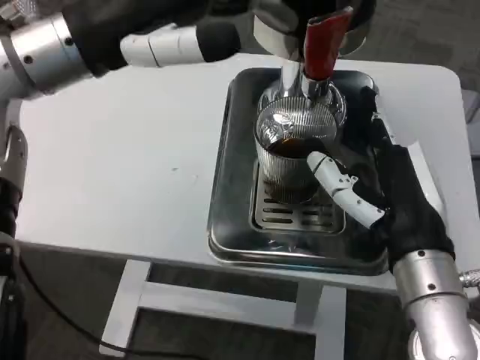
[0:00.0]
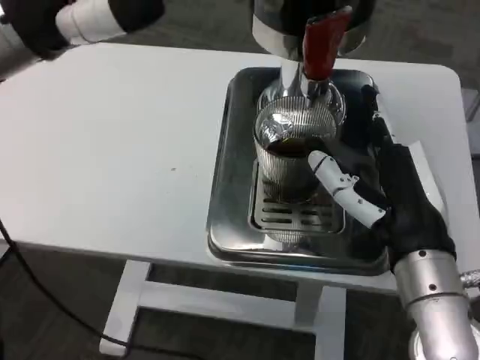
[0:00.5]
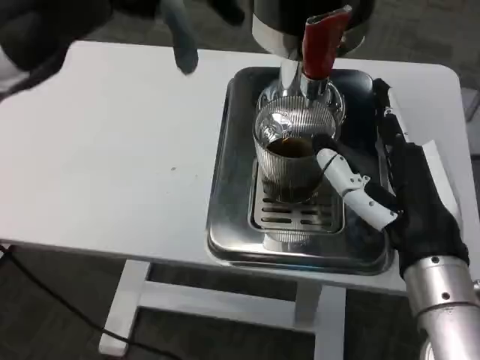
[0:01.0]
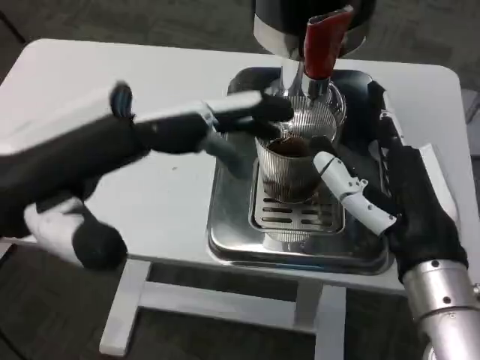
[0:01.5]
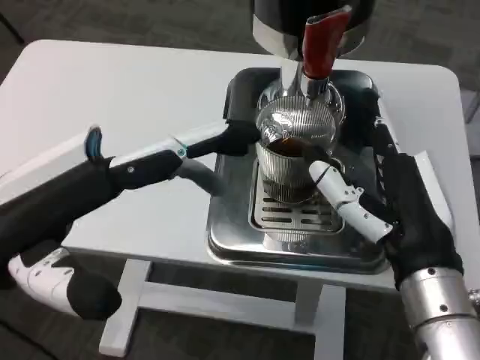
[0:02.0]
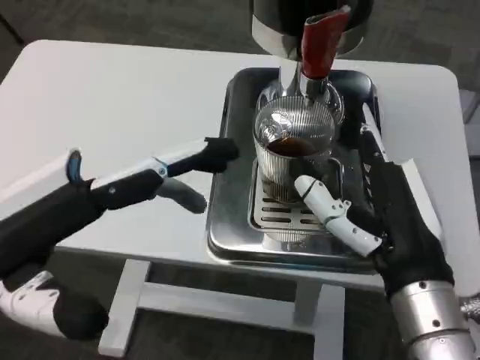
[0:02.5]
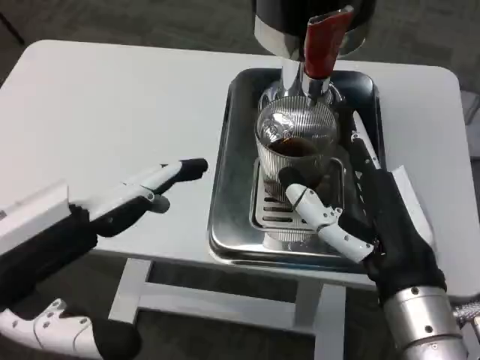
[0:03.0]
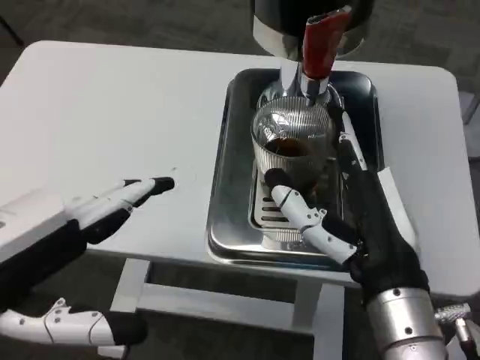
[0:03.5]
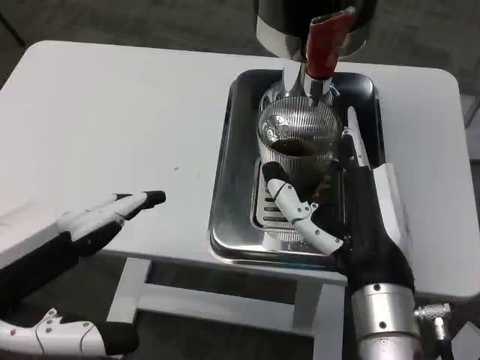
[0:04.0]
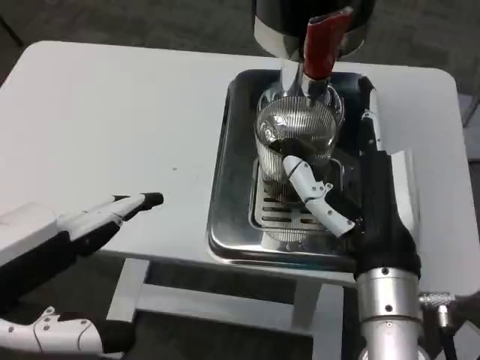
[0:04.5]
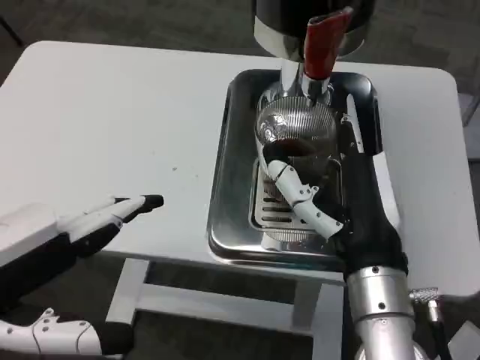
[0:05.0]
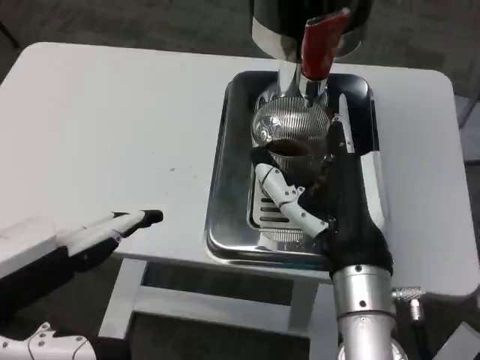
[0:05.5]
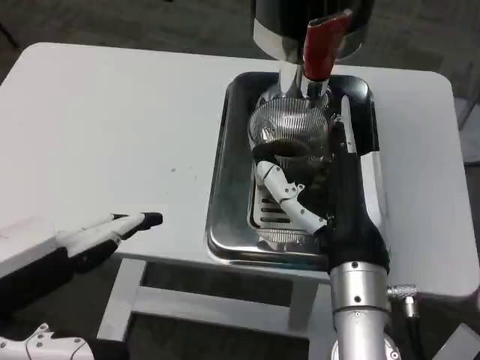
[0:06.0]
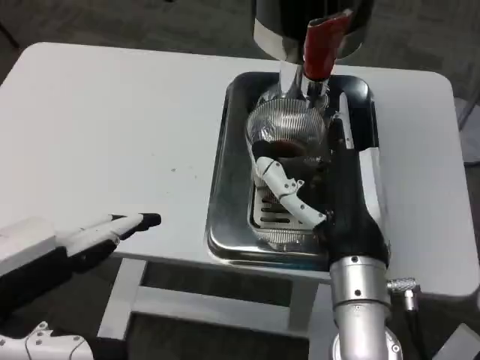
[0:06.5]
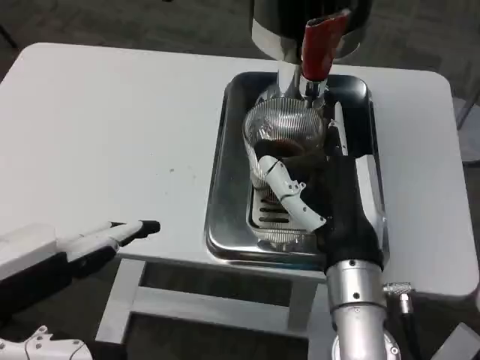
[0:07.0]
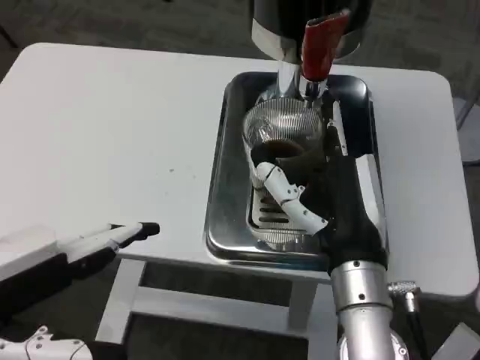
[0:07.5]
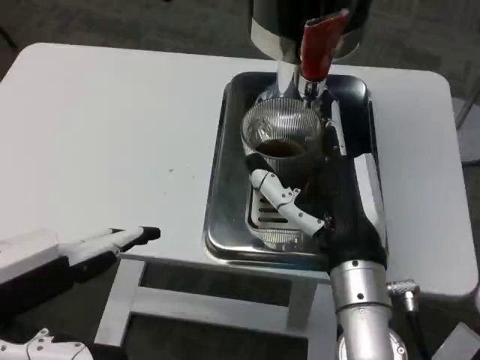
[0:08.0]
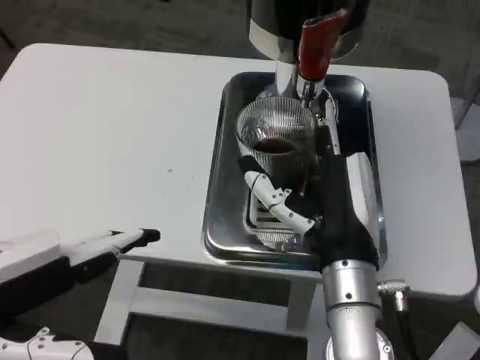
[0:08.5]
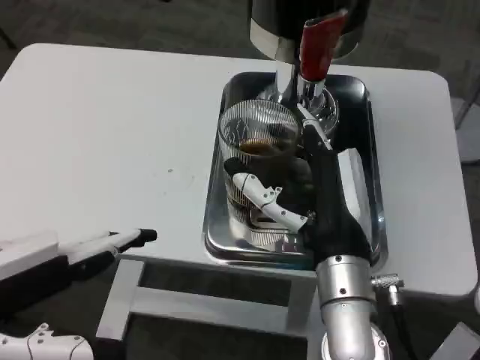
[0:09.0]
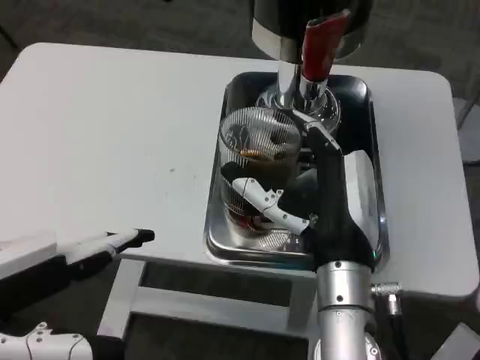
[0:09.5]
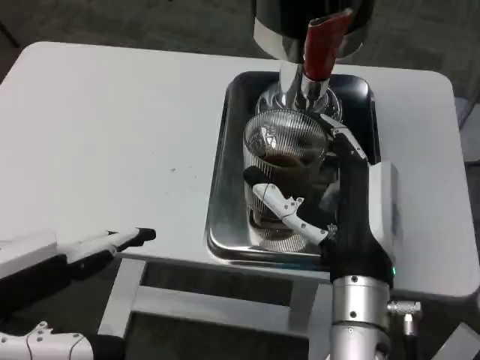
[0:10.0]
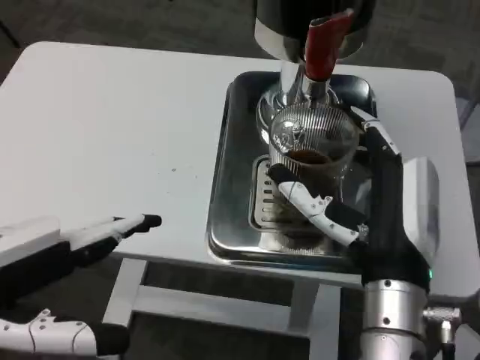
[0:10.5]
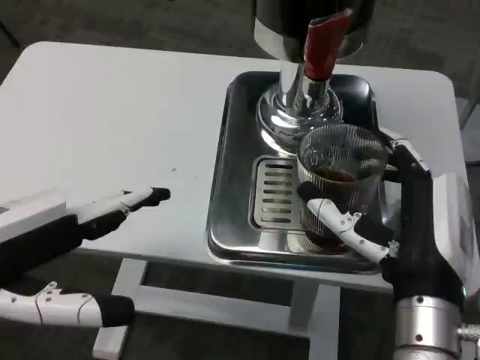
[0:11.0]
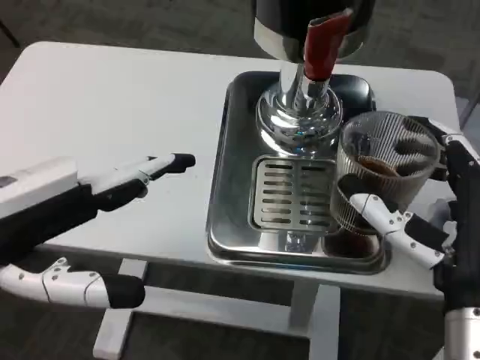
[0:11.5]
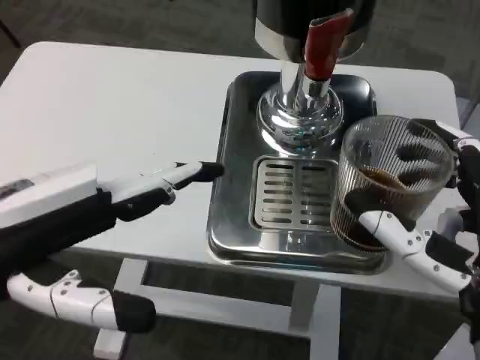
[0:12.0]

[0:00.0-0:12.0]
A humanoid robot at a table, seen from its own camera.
Task of the whole recording: Grasp the cup under the faucet to collect the drink, then remove the cup.
0:00.0 to 0:02.0: The left hand travels downward, backward and to the left by about 15 cm.
0:02.0 to 0:04.0: The left hand is displaced backward by roughly 5 cm.
0:06.0 to 0:10.0: The hands move only a little.
0:10.0 to 0:12.0: The right hand heads backward and to the right, covering roughly 15 cm.

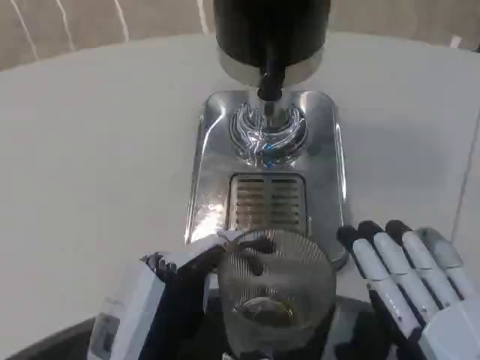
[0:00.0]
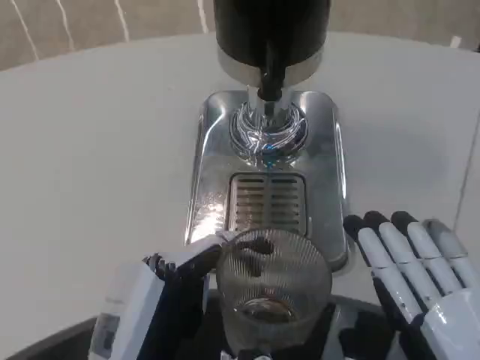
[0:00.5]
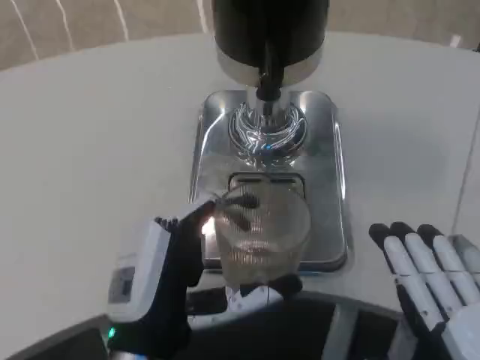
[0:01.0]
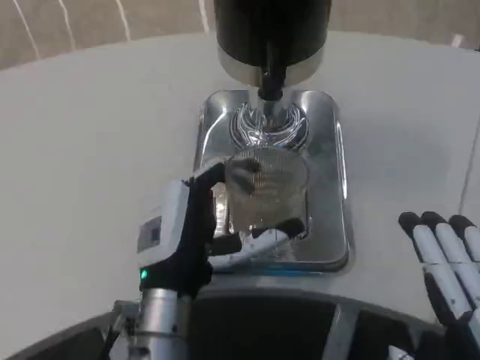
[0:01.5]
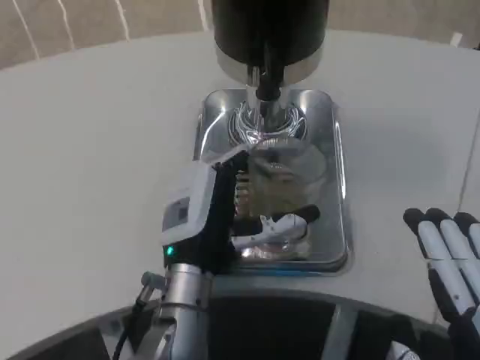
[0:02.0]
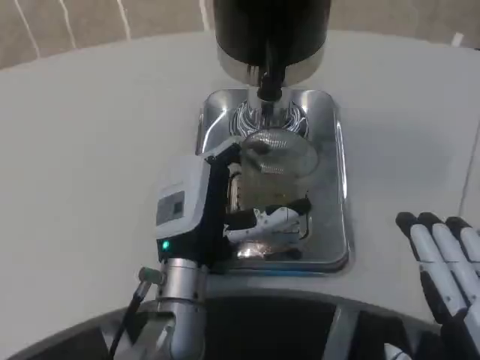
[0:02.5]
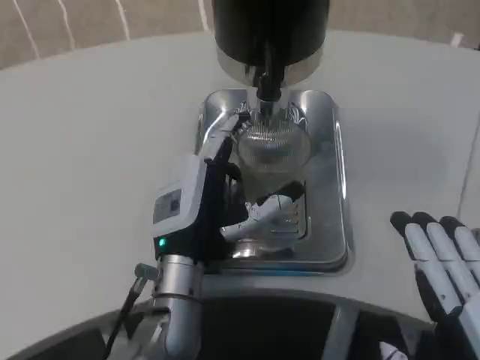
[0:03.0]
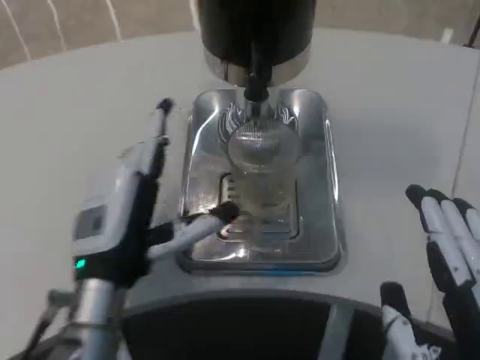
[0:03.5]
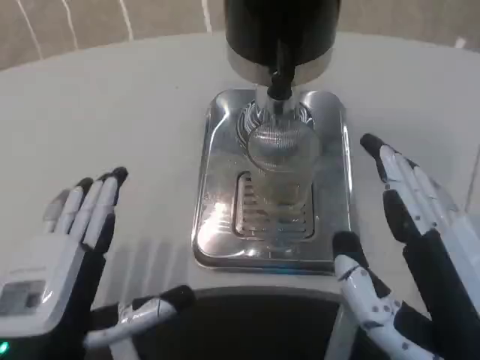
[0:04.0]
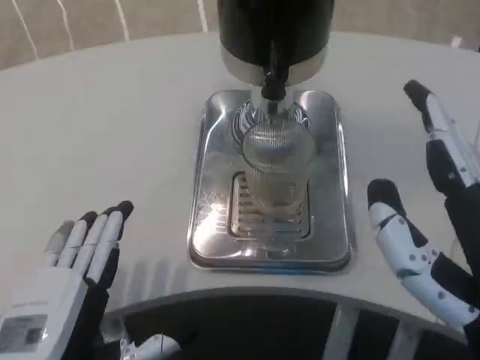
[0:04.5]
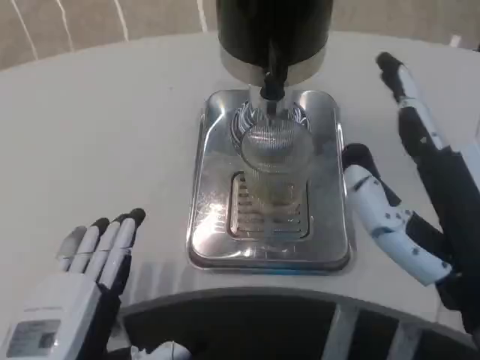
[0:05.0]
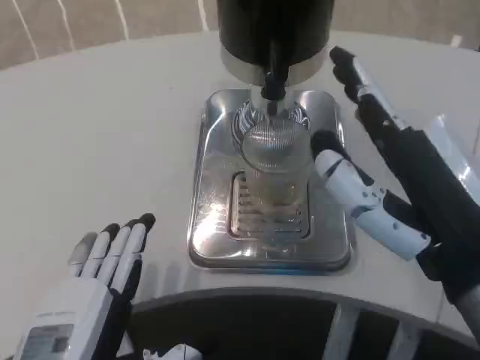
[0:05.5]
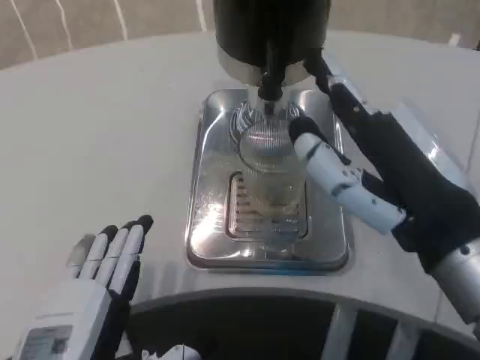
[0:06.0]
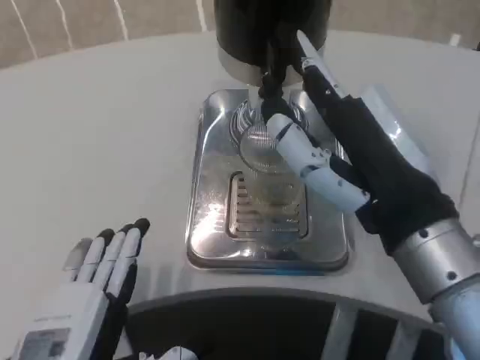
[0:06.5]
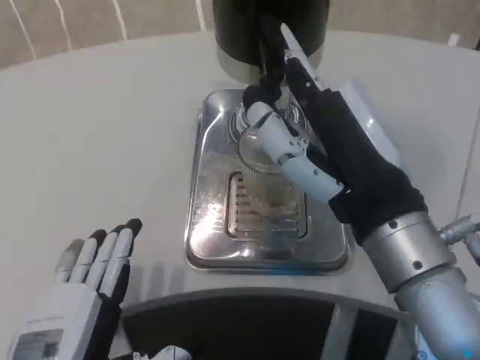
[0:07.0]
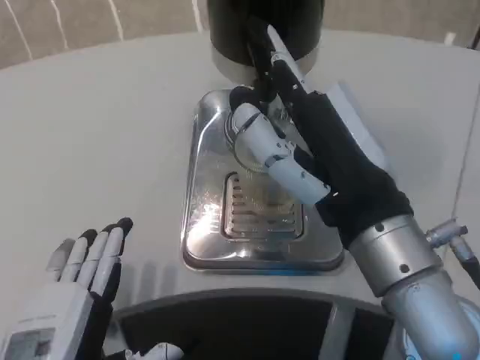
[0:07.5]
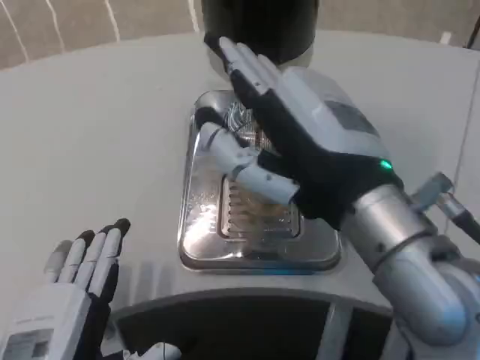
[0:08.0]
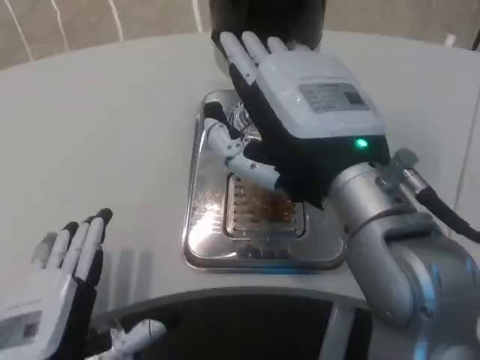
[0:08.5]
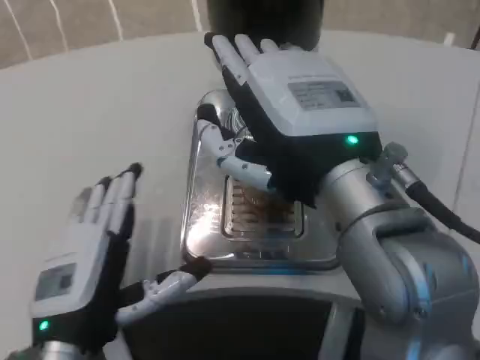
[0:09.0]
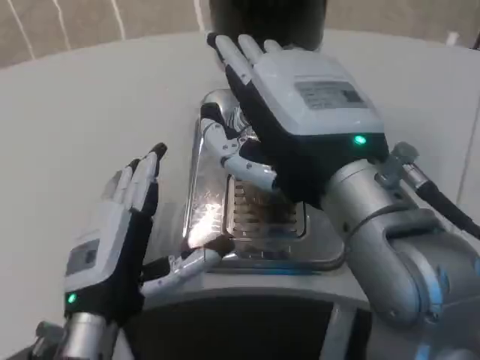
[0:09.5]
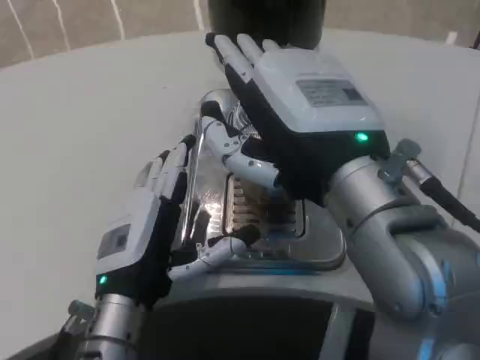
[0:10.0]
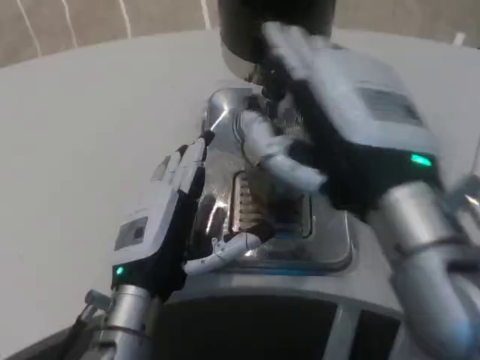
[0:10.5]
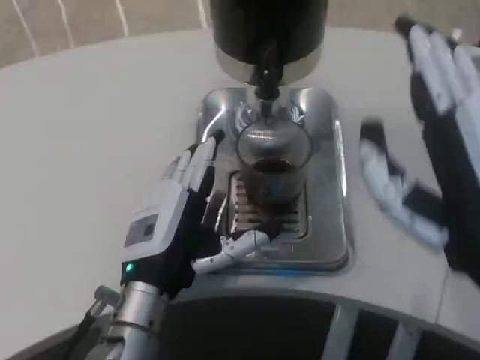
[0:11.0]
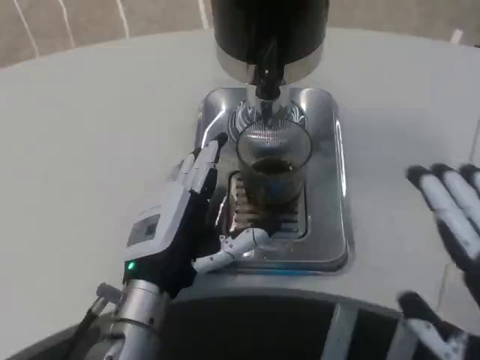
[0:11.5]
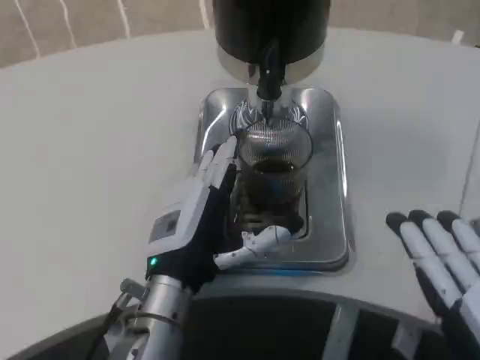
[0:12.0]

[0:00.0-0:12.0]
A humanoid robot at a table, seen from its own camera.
Task of the whole recording: Grasp the cup under the faucet to collect the drink, then remove the cup.
0:00.0 to 0:02.0: The left hand goes approximately 15 cm forward.
0:02.0 to 0:04.0: The left hand heads backward and to the left, covering roughly 15 cm, while the right hand moves about 5 cm.
0:04.0 to 0:06.0: The right hand is displaced forward by about 10 cm.
0:06.0 to 0:08.0: The right hand shifts some 5 cm to the left.
0:08.0 to 0:10.0: The left hand goes approximately 10 cm forward.
0:10.0 to 0:12.0: The right hand goes roughly 20 cm backward, to the right and downward.

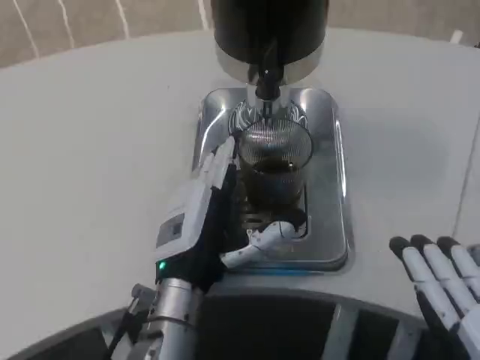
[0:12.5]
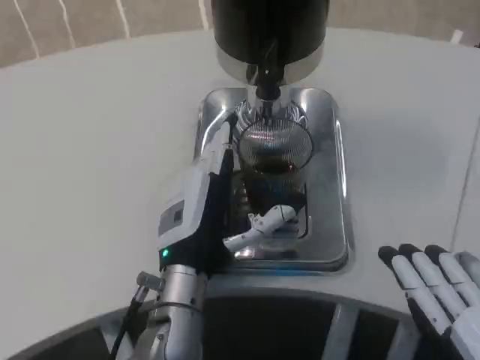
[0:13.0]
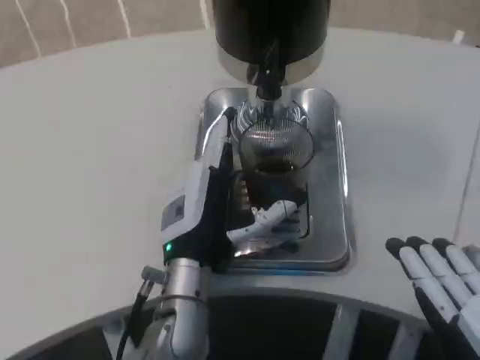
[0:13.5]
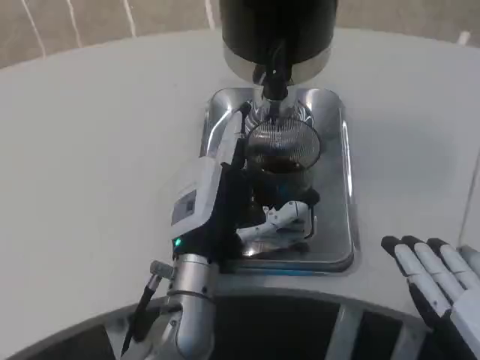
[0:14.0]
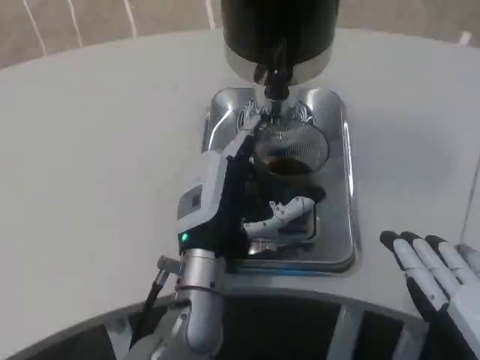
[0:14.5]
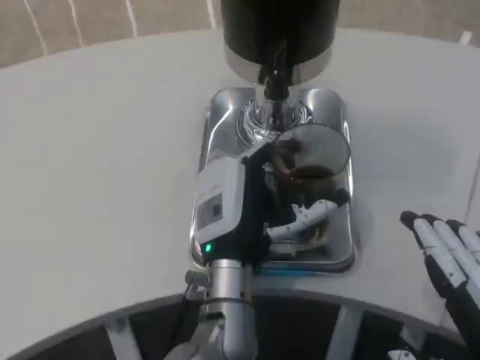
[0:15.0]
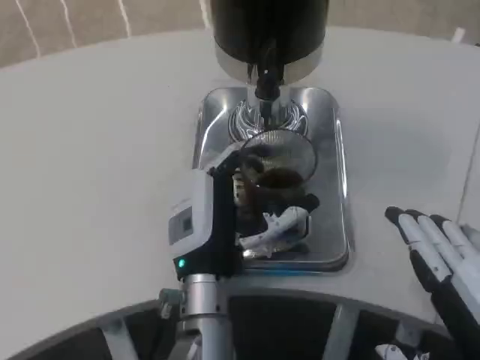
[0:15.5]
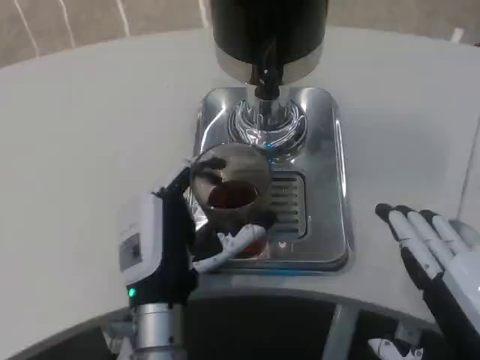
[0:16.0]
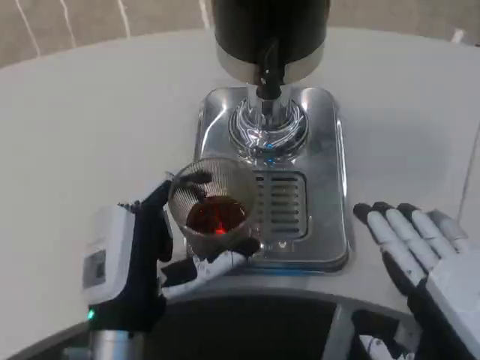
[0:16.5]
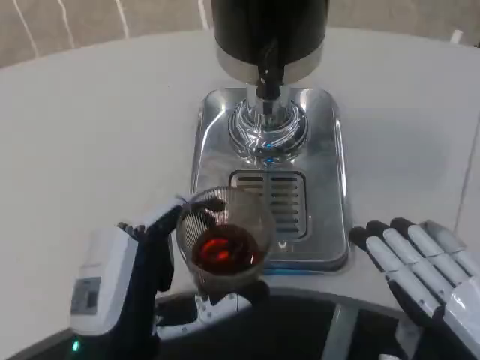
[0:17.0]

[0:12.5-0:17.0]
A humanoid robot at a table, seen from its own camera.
Task of the whole recording: Grasp the cup under the faucet to collect the drink, then remove the cup.
0:12.5 to 0:14.5: The hands stay close to where they were, moving slightly.
0:14.5 to 0:17.0: The left hand shifts approximately 15 cm backward and to the left.
